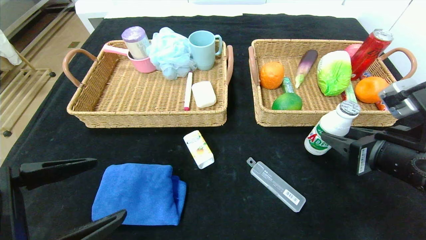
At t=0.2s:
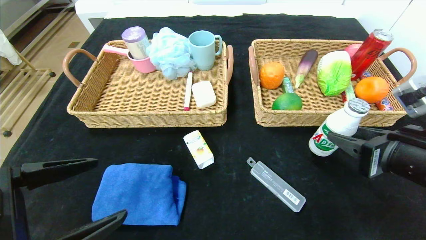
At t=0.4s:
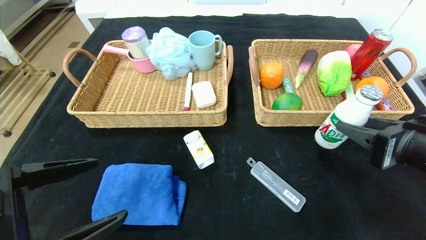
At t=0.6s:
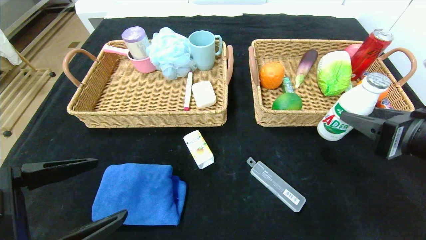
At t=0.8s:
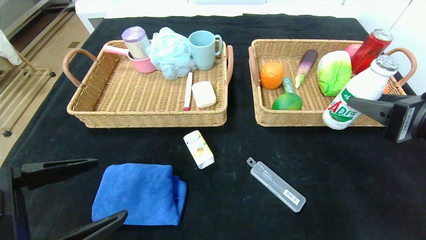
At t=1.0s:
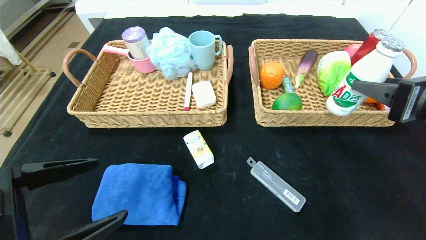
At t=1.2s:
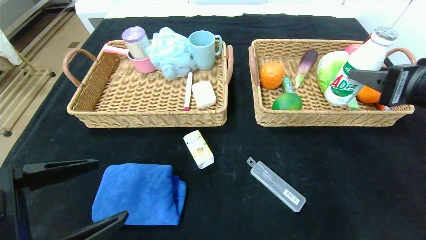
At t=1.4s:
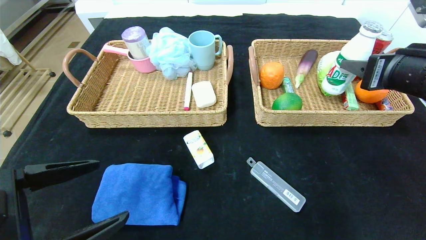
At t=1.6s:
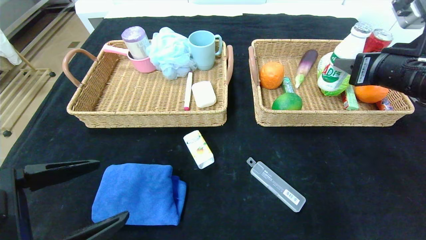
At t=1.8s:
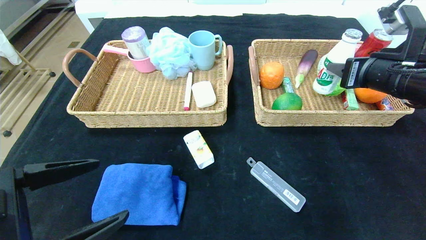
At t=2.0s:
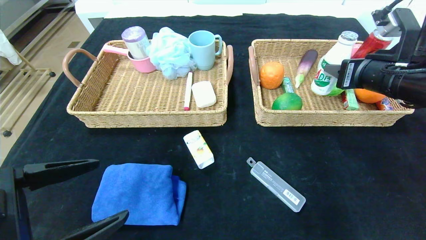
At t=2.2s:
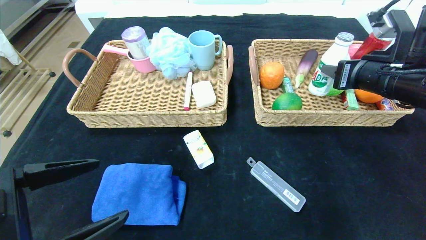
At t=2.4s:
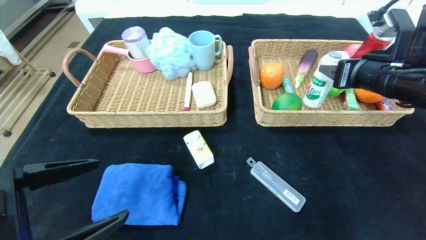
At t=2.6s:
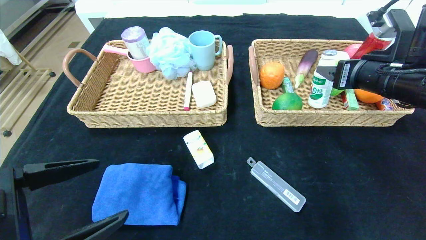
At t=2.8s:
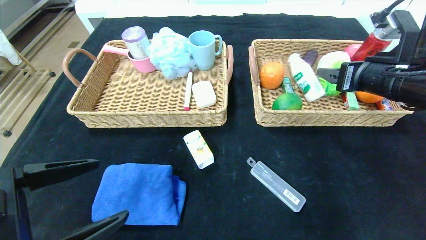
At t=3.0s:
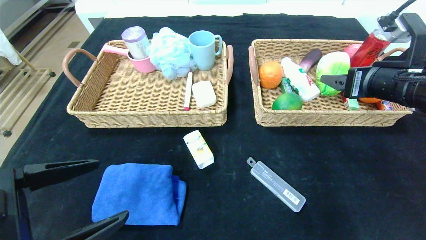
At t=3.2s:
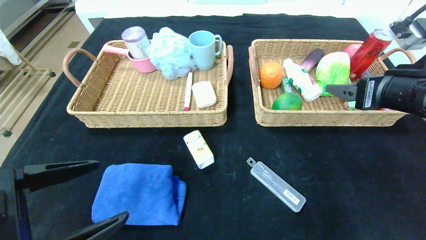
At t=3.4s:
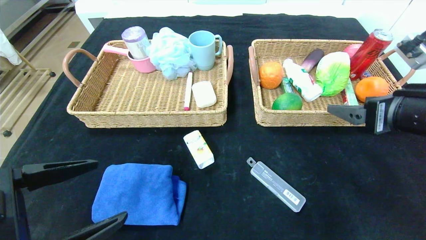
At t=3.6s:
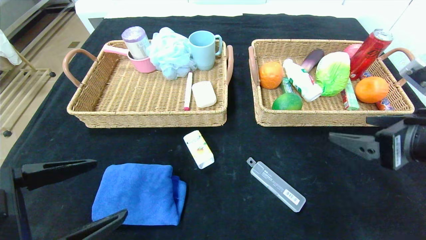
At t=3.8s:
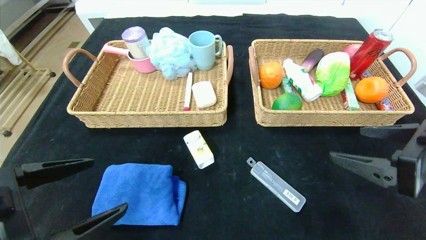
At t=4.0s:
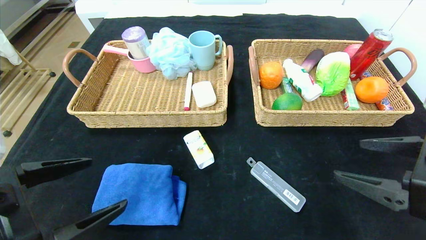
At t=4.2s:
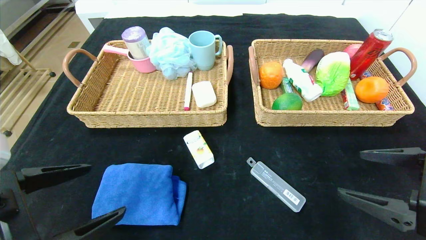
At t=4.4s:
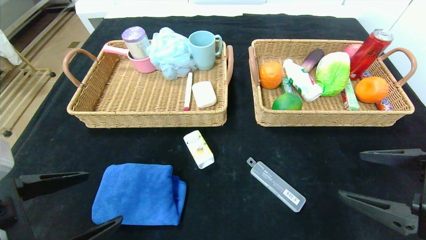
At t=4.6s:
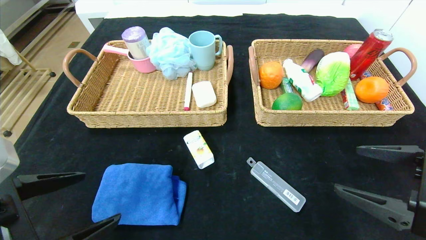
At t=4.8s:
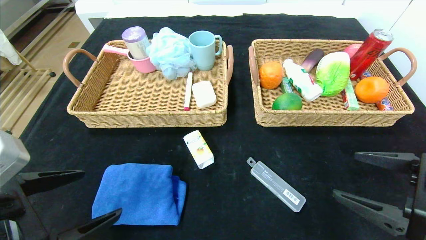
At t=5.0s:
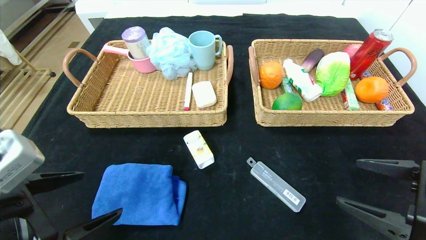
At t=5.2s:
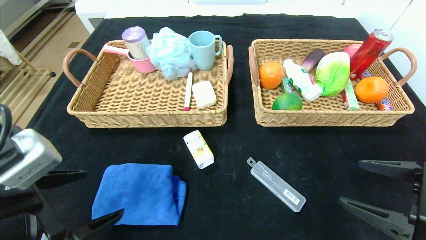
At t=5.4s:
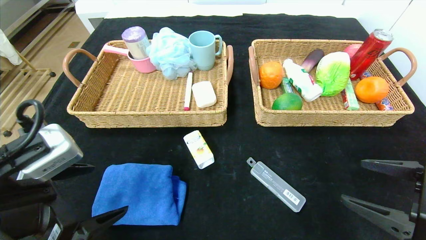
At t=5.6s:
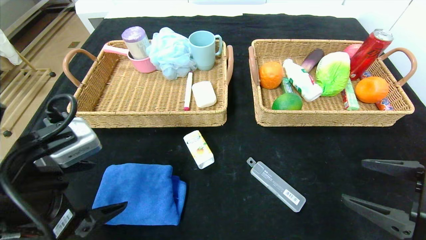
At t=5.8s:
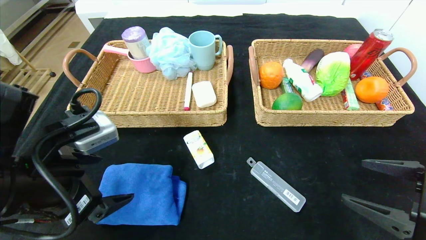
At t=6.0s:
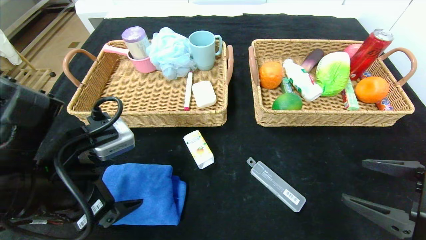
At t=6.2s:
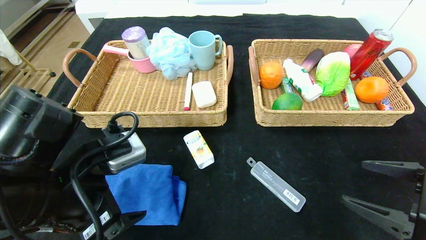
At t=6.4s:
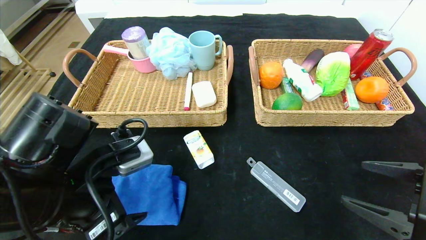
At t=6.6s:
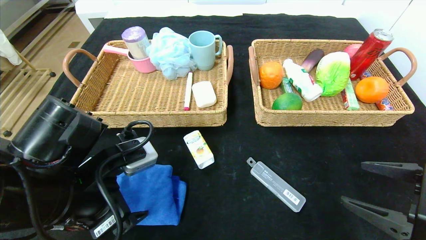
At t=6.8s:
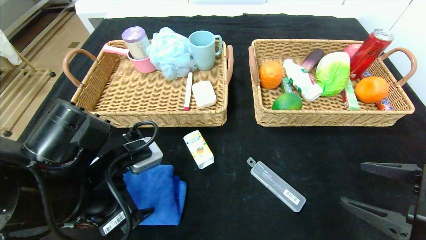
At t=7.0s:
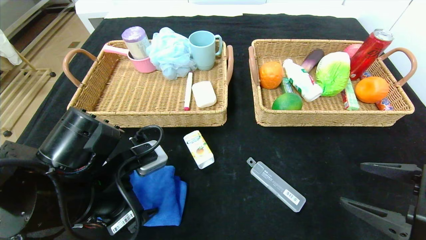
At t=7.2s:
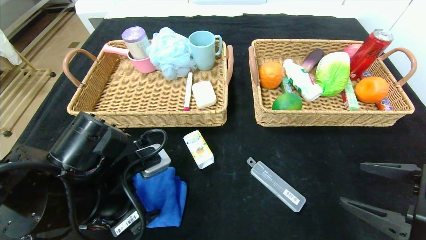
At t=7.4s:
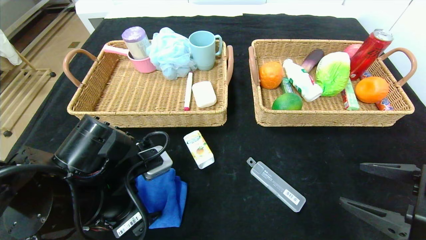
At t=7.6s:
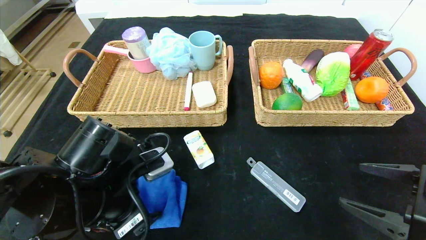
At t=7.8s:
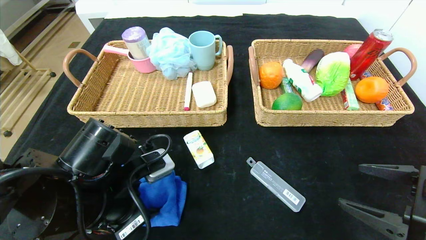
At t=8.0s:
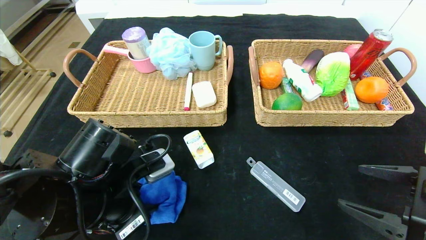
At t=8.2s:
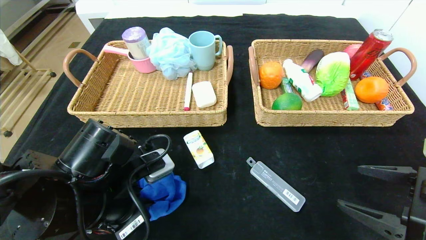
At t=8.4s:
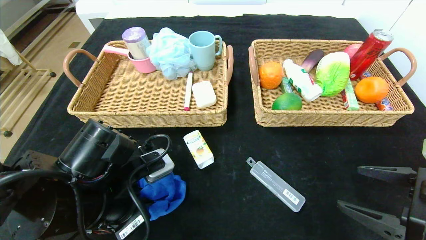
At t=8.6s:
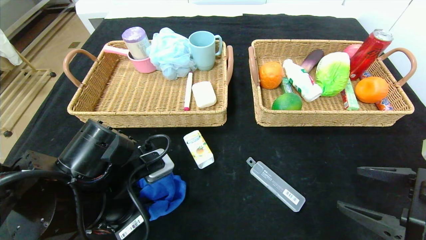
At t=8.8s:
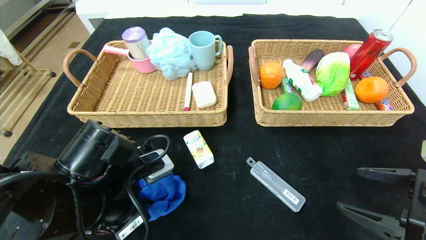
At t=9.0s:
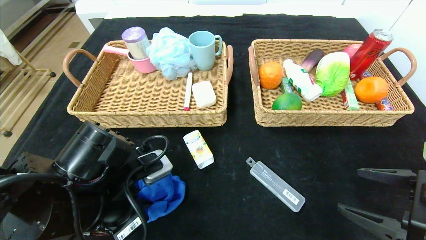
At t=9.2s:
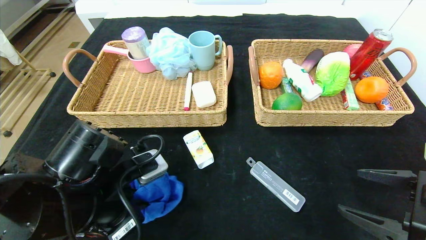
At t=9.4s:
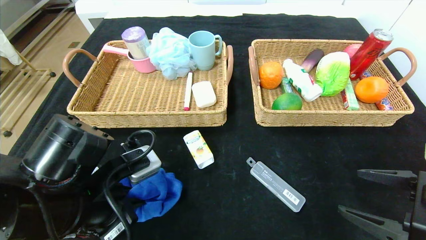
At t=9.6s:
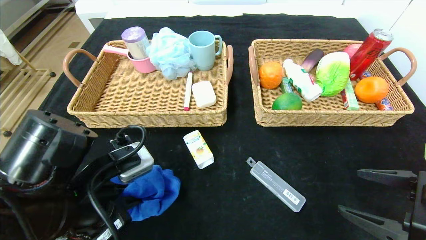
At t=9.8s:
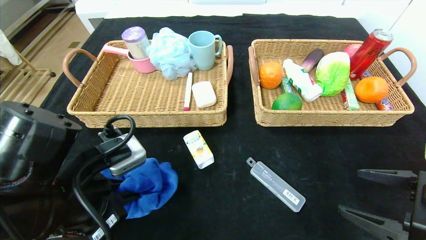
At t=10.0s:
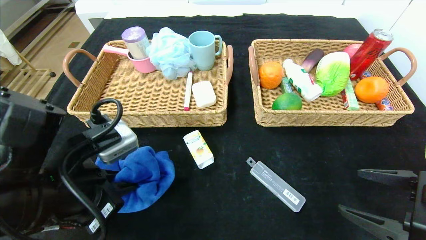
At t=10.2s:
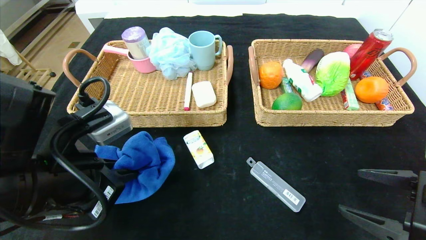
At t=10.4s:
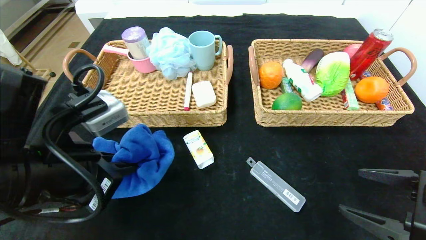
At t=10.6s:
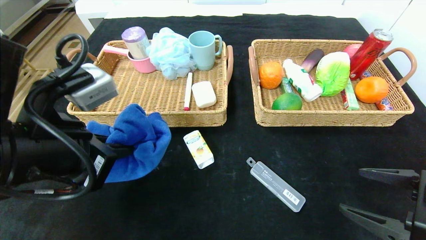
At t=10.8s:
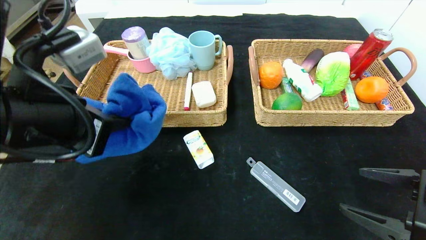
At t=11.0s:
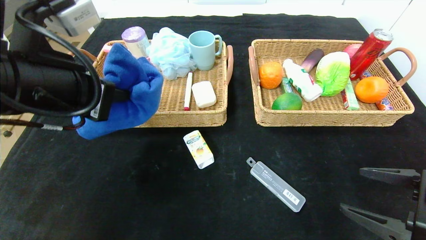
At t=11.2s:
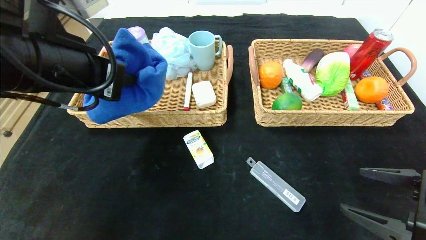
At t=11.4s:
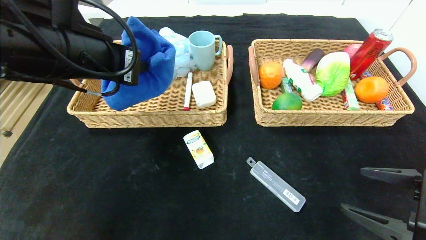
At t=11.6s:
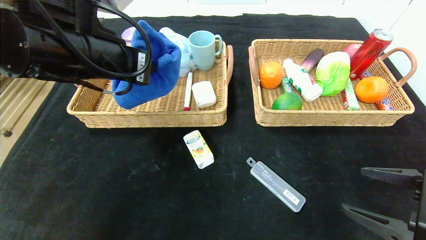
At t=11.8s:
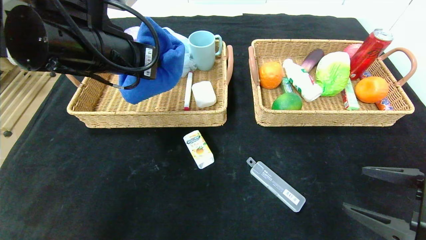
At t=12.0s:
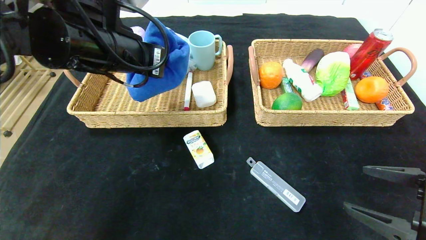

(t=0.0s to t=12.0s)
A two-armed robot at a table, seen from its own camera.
Step, t=0.0s - t=3.6s: Pick up the ad milk and put it in the right basket.
t=0.0s - t=1.6s: The right gripper is displaced upward and forward by roughly 10 cm.
t=1.6s - t=3.0s: The right gripper opens.
t=3.0s - t=4.4s: The right gripper goes approximately 15 cm backward and downward.
t=4.4s - t=6.0s: The left gripper moves forward, some 5 cm.
t=6.0s - t=7.6s: The left gripper is displaced downward by roughly 5 cm.
t=7.6s - t=9.0s: The left gripper closes up.
t=9.0s - t=10.4s: The left gripper travels upward by roughly 10 cm.
t=10.4s - t=12.0s: The left gripper travels forward and upward by approximately 15 cm.

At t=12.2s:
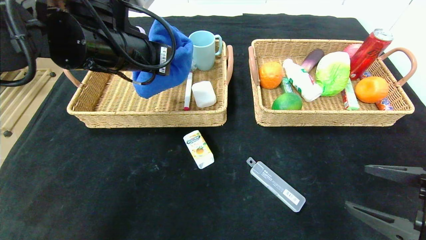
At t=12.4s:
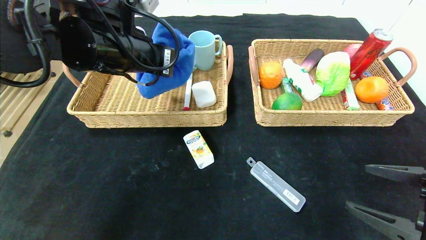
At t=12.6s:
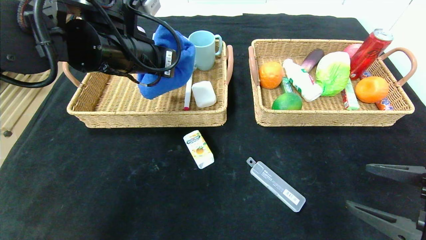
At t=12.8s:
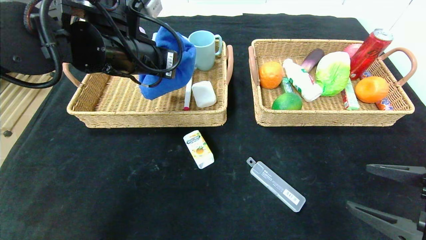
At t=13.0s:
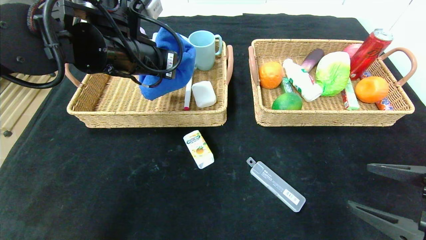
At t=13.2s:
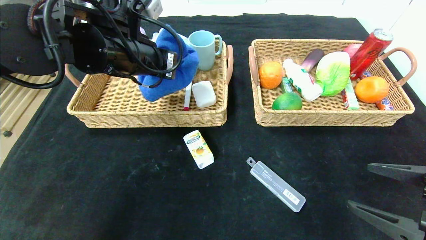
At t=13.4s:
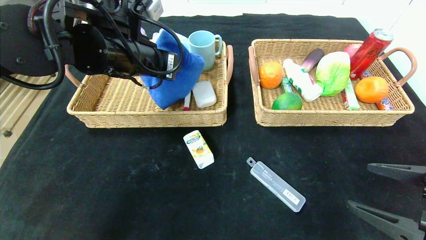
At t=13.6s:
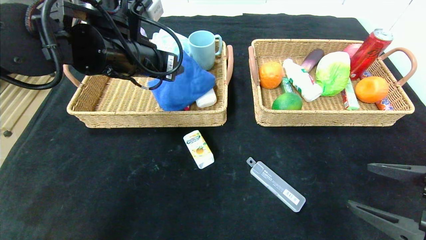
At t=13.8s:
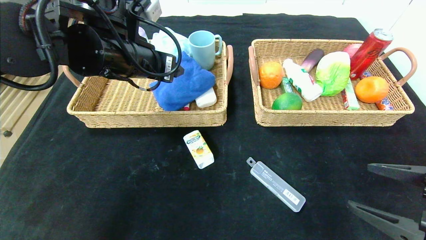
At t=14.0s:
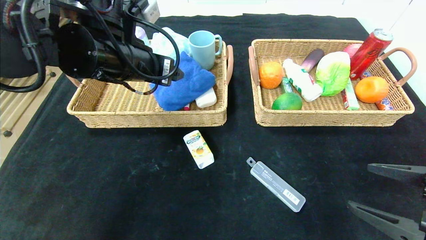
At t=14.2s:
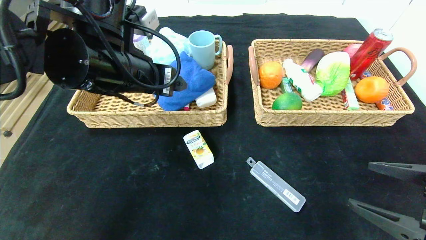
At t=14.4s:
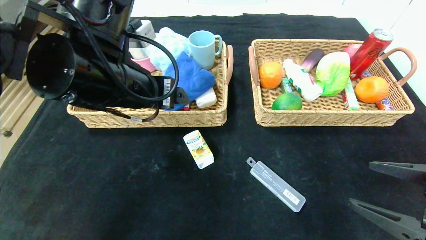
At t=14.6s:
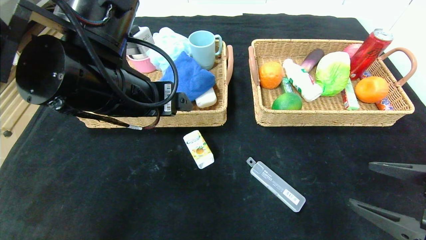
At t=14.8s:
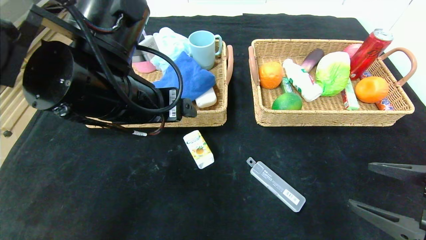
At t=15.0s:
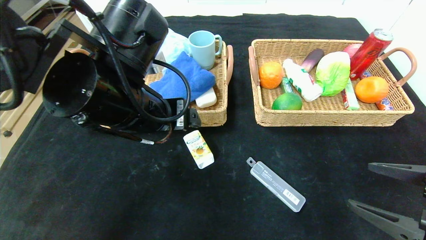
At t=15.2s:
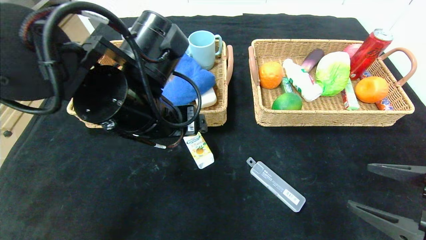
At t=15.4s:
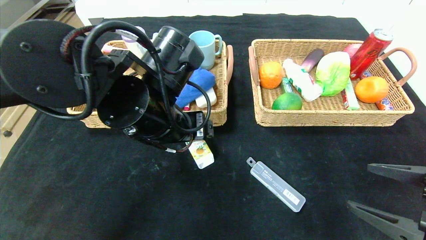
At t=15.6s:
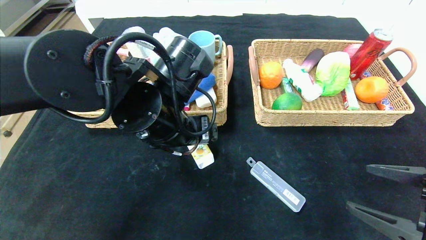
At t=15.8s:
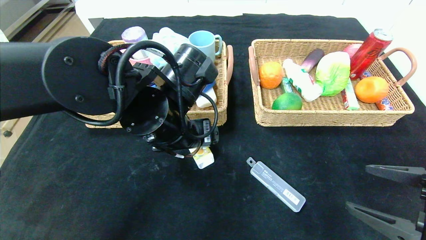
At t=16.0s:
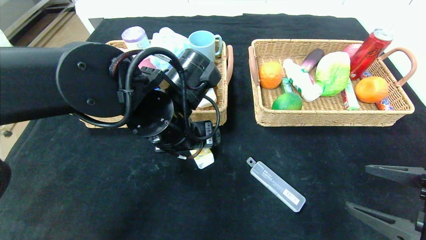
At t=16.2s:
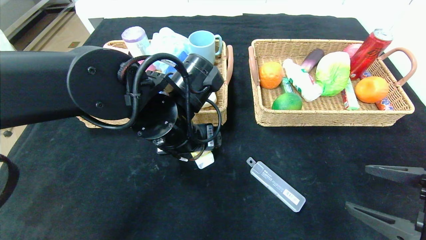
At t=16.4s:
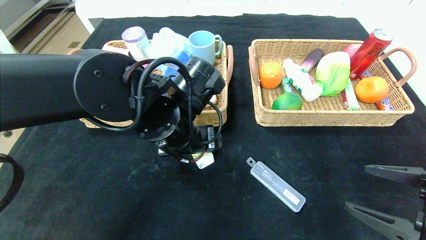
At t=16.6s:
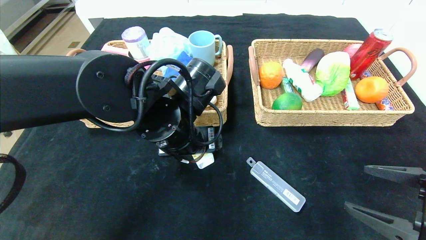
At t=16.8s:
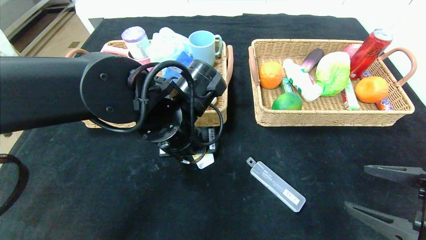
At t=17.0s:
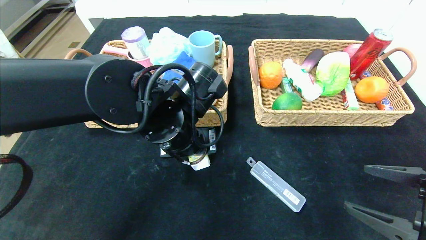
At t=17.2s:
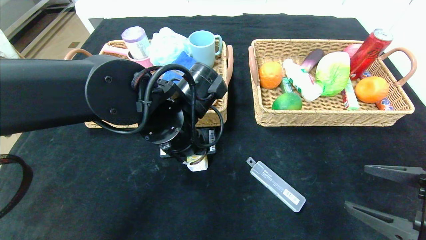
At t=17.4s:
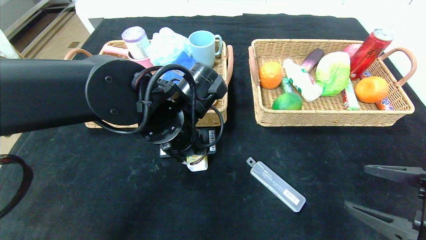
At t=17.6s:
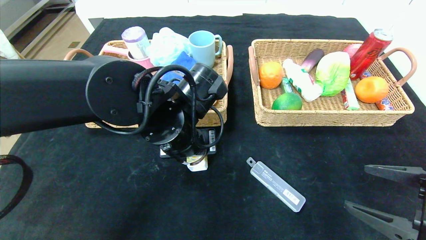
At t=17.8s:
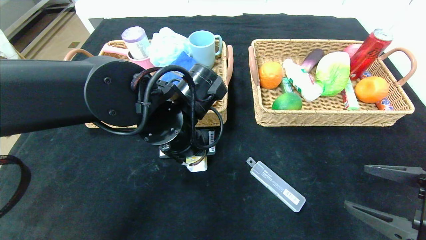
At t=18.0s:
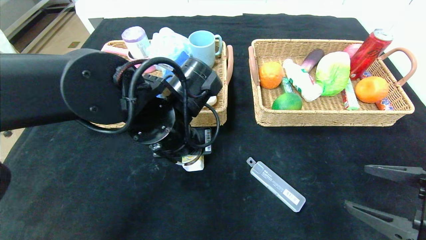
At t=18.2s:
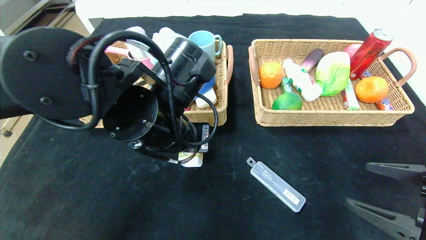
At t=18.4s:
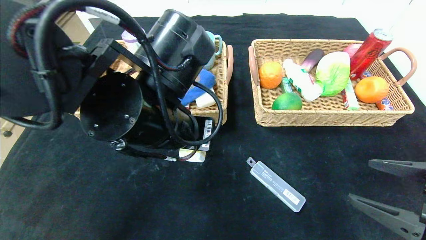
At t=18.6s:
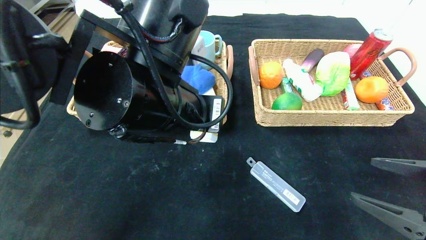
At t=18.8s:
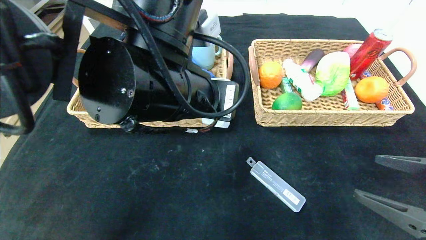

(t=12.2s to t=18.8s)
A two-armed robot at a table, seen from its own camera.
Step, t=12.2s - t=15.2s: Pick up the blue towel and put it in the left basket.
t=12.2s - t=13.8s: The left gripper opens up.
t=13.8s - t=15.4s: The left gripper shifts about 10 cm downward, to the right and backward.
t=15.4s - t=17.2s: The left gripper closes up.
t=17.2s - t=18.8s: The left gripper goes some 10 cm upward and backward.
